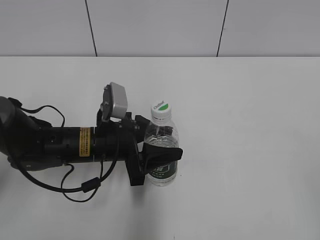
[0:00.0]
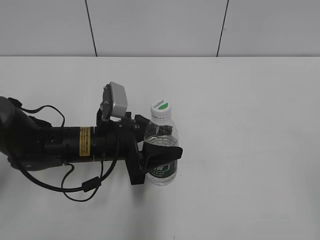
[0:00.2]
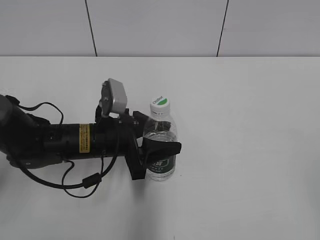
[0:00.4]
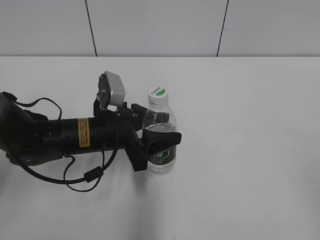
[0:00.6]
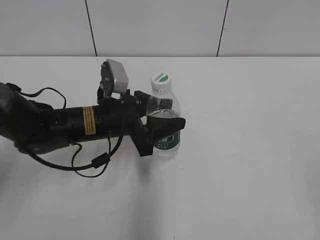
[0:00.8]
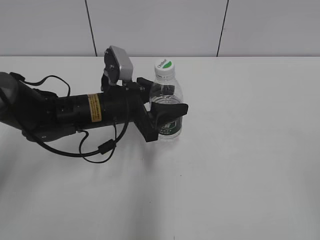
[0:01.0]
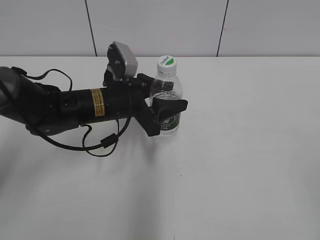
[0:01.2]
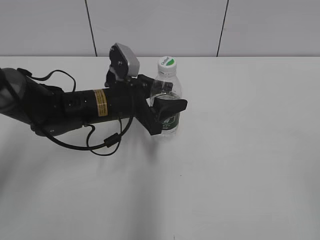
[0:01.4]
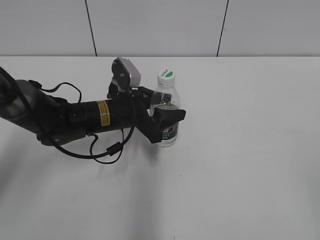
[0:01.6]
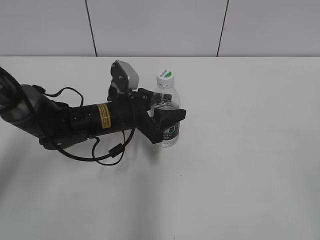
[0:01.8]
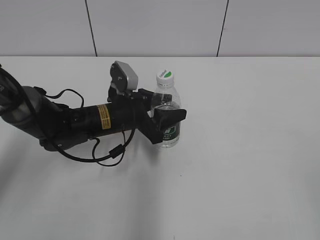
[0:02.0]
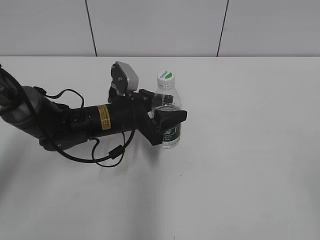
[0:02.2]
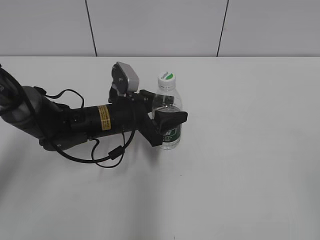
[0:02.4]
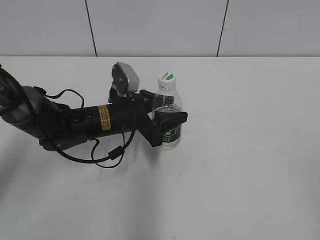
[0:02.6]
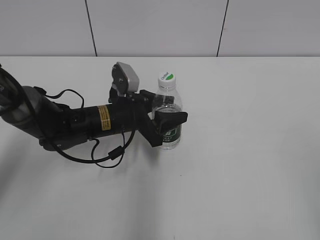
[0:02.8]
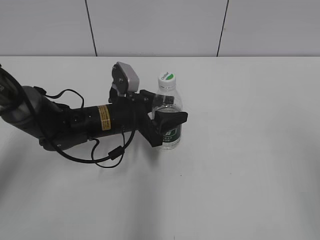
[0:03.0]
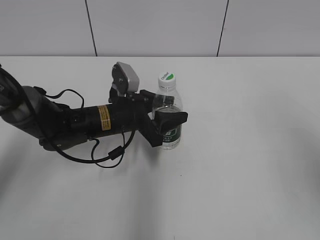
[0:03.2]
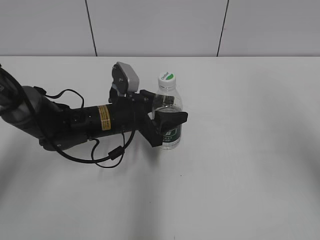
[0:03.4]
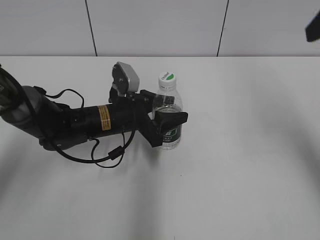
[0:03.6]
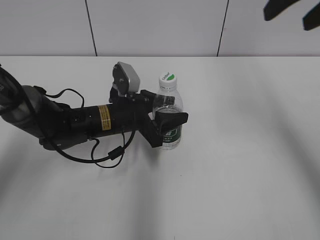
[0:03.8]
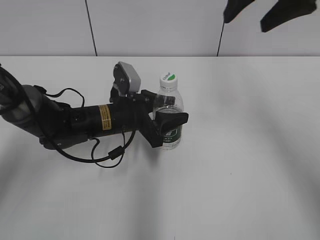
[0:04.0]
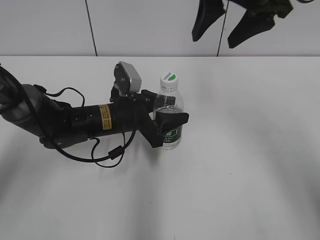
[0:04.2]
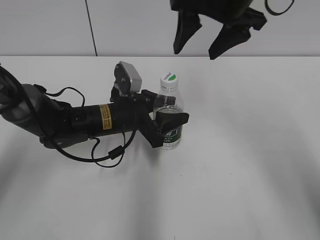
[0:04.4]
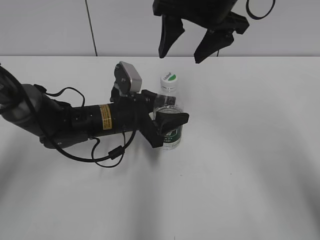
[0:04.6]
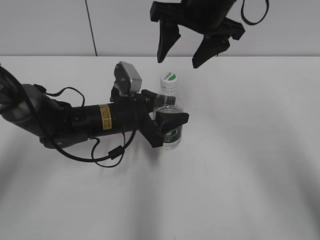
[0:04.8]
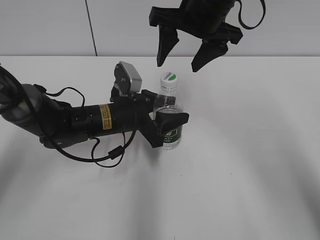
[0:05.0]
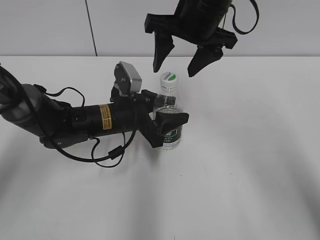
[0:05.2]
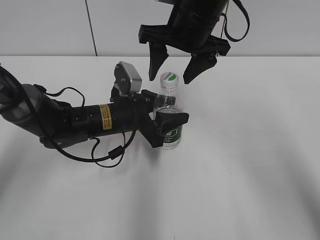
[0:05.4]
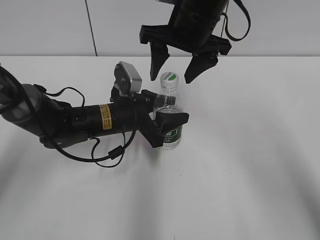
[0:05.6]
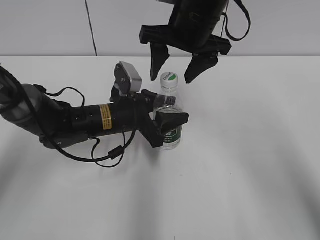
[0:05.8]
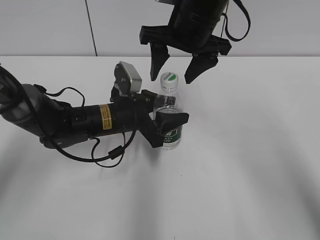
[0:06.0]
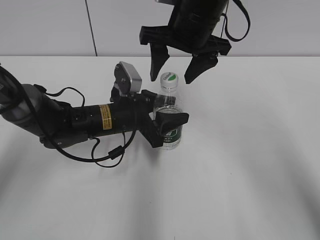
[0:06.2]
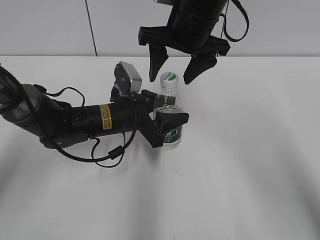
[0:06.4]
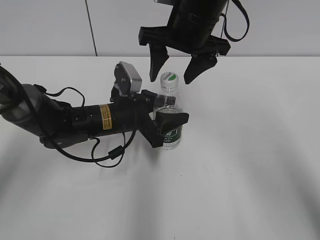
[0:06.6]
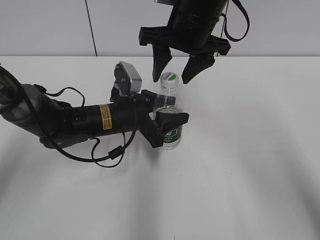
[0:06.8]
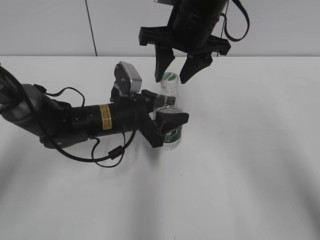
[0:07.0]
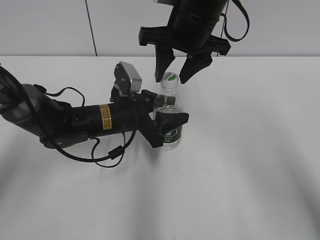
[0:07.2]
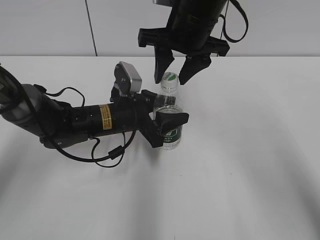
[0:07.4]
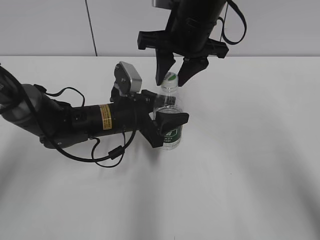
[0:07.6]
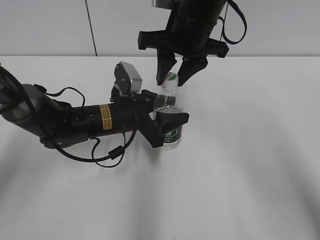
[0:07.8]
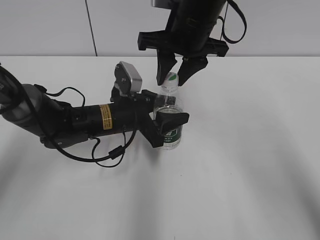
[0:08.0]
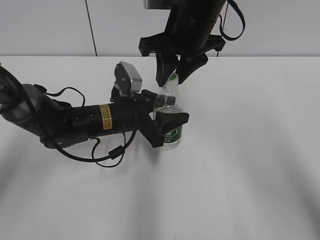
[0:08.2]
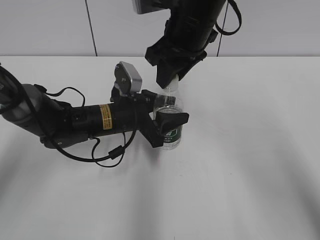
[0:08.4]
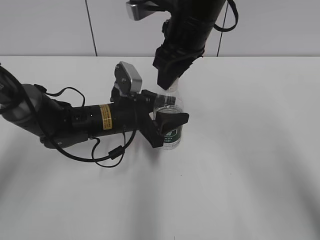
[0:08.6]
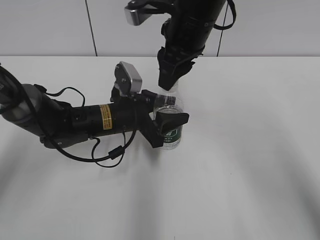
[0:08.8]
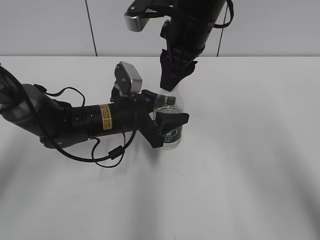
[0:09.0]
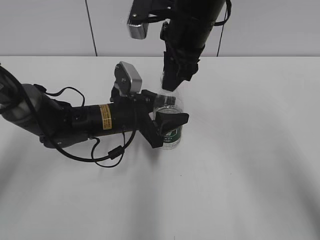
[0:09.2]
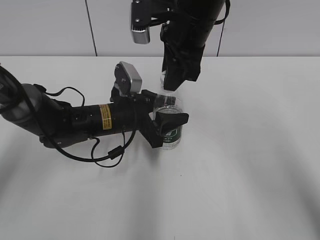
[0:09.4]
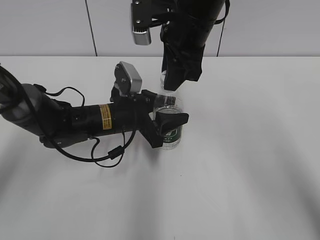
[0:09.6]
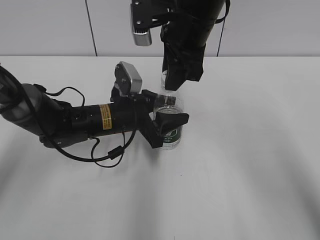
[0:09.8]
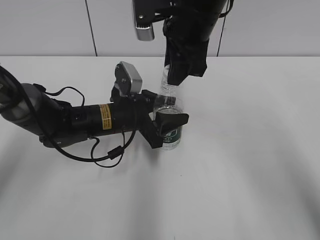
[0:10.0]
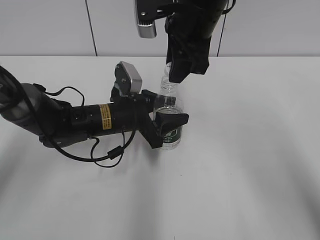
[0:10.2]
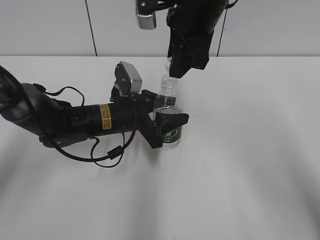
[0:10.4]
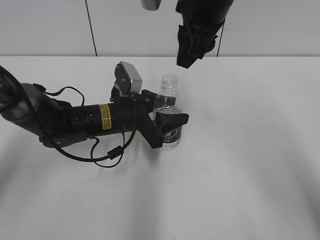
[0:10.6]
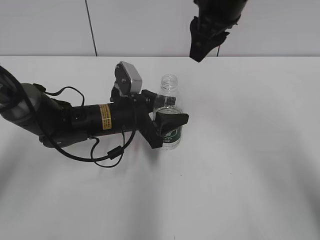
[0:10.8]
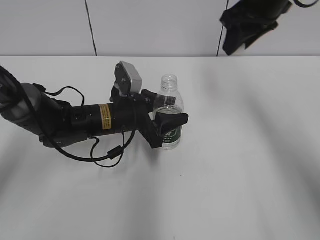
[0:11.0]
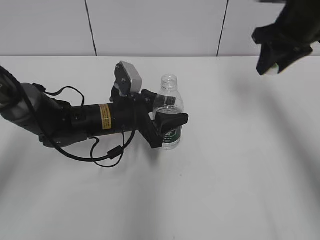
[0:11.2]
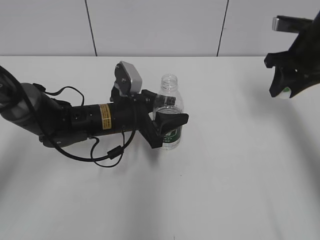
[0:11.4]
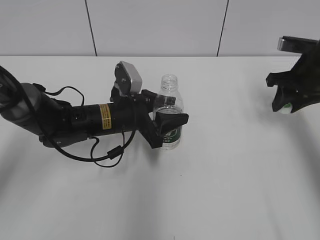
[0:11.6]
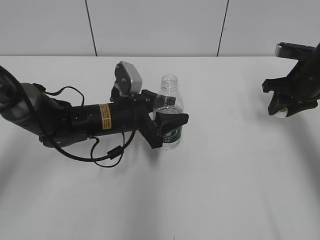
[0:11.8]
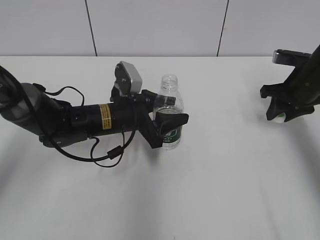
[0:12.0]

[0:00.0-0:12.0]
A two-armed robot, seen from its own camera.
Step, 0:00.0 to 0:02.2: Lift the bottle and move it to the center of the table with the left gripper.
Step, 0:02.6 to 0:10.4: Unscrew the bottle cap with the right gripper while holding the bottle with the left gripper.
0:00.0 to 0:01.6: The left gripper is displaced forward by approximately 5 cm.
0:01.6 to 0:03.0: The right gripper goes roughly 10 cm forward and upward.
0:03.0 to 0:04.4: The right gripper shifts some 35 cm forward and to the left.
0:04.4 to 0:06.0: The right gripper travels downward by approximately 5 cm.
0:06.0 to 0:07.6: The right gripper closes.
0:10.4 to 0:12.0: The right gripper is displaced to the right and downward by about 25 cm.

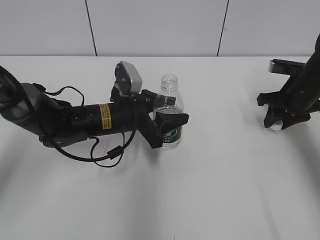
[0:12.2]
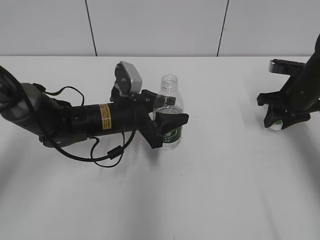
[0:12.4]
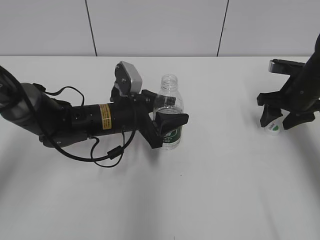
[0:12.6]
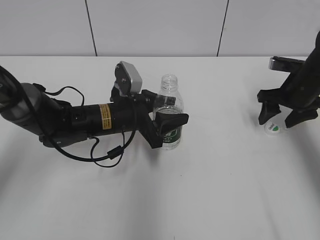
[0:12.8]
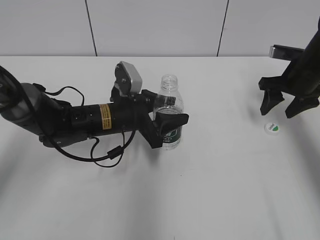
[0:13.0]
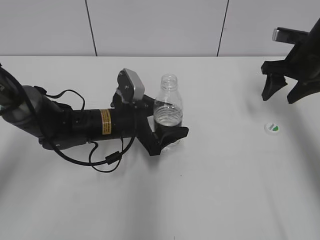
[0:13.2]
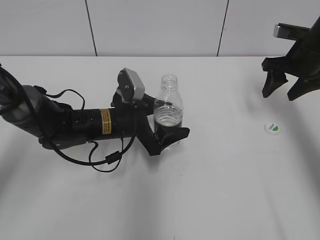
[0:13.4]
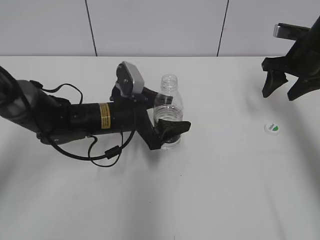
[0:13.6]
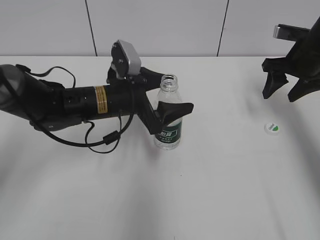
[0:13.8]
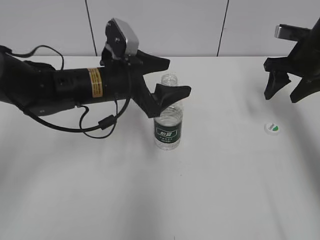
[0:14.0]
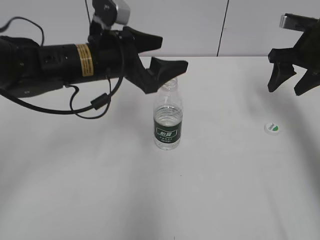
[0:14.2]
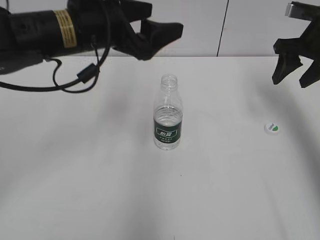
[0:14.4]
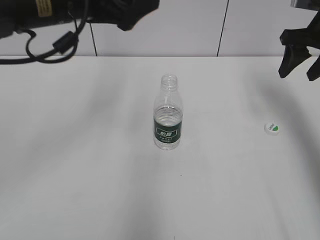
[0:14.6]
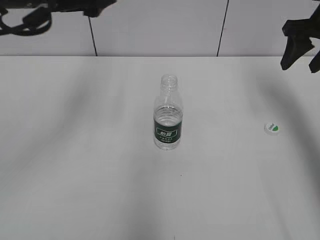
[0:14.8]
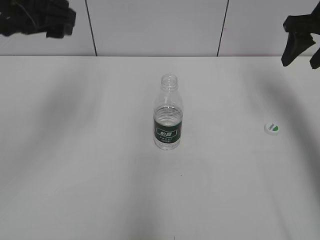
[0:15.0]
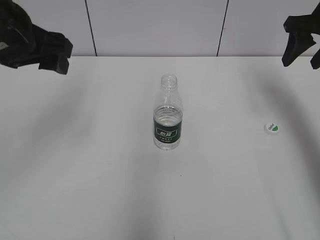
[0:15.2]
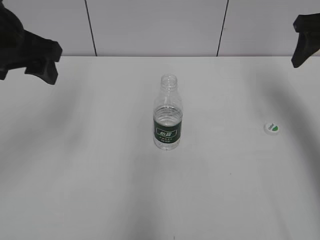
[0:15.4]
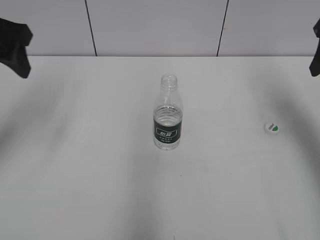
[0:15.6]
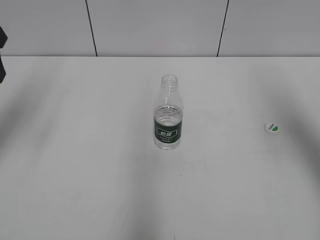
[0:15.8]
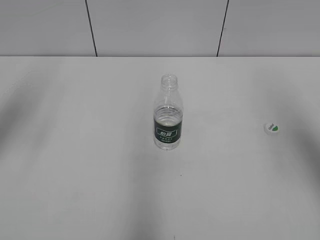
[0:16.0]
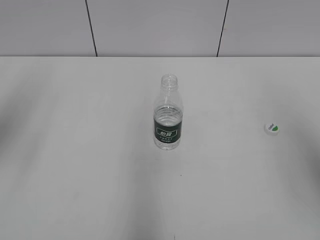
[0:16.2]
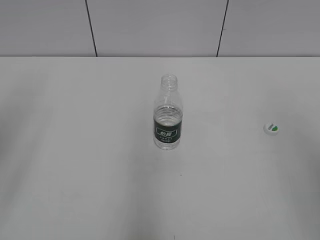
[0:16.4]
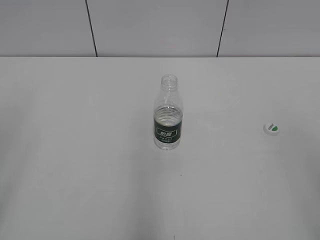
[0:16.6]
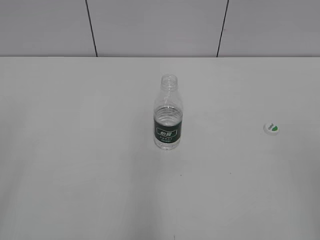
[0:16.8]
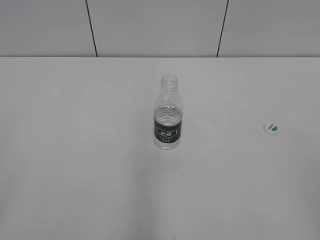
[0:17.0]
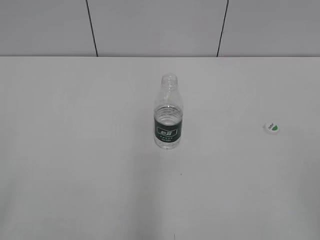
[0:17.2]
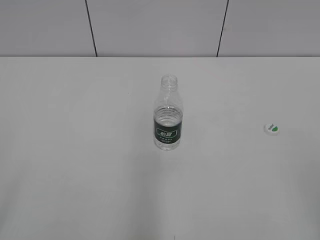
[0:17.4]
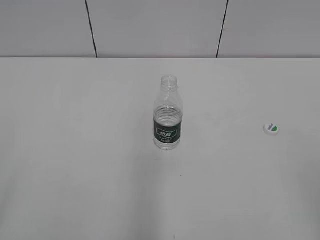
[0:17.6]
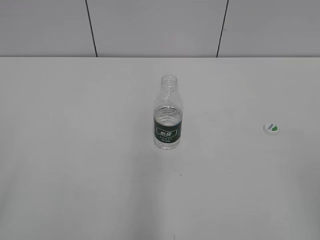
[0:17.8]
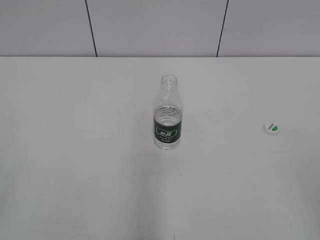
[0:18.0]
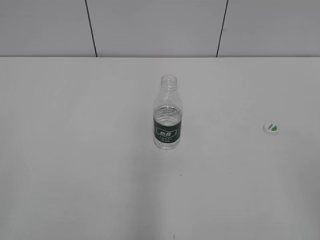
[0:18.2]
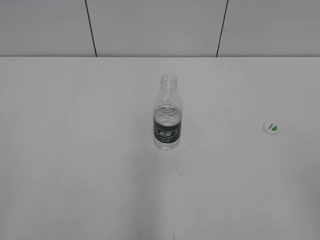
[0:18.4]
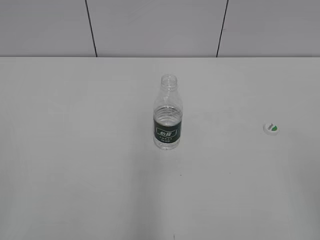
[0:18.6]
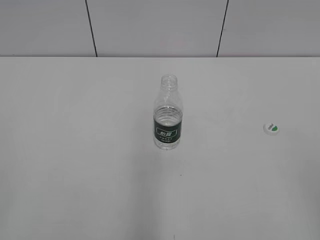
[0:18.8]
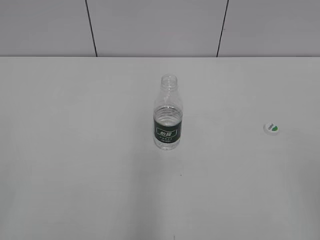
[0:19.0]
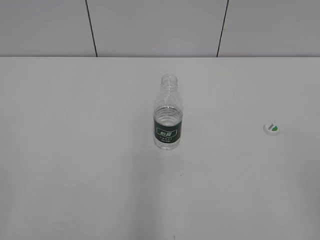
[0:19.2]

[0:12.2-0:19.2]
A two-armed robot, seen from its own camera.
Step, 0:13.6 to 0:14.4: Place the bottle on the table with the left gripper.
0:12.2 to 0:13.6: The right gripper moves upward, about 5 cm, and opens. Meanwhile the left gripper opens.
0:13.6 to 0:15.0: The left gripper goes approximately 25 cm upward and to the left; the right gripper shifts roughly 10 cm upward.
0:15.0 to 0:16.4: The left gripper travels backward and to the left by approximately 15 cm. Meanwhile the right gripper is displaced backward by roughly 30 cm.
